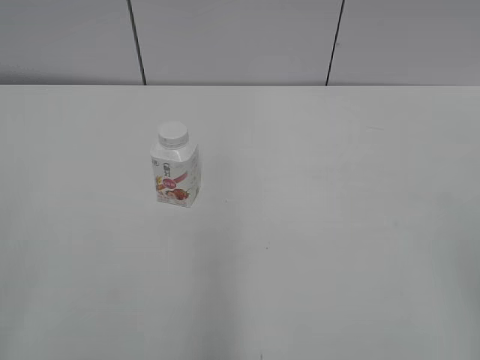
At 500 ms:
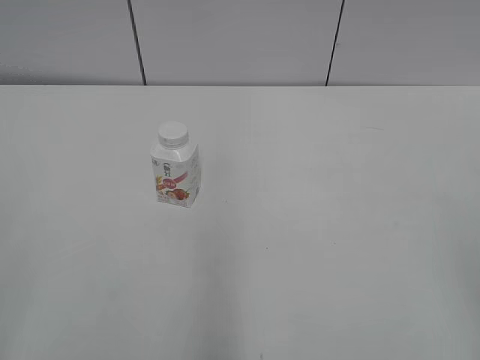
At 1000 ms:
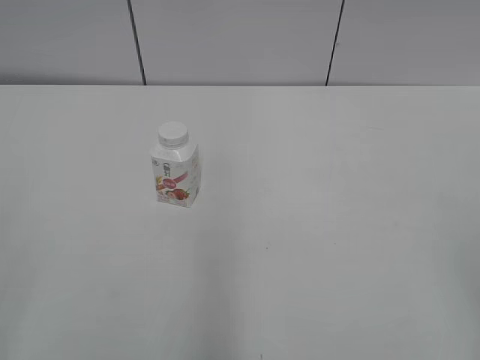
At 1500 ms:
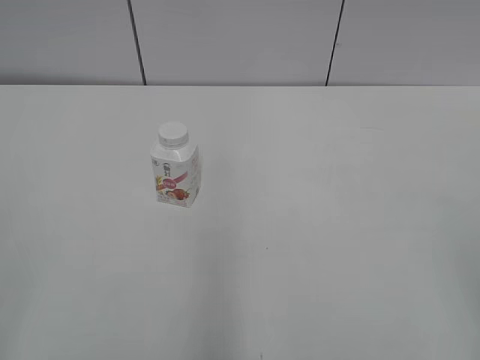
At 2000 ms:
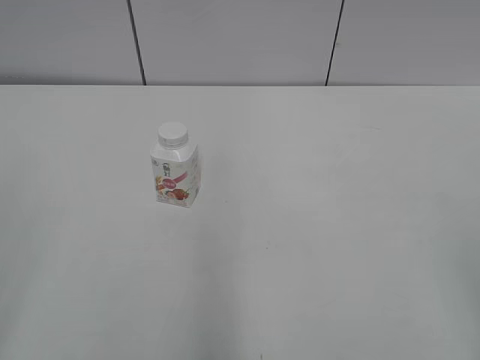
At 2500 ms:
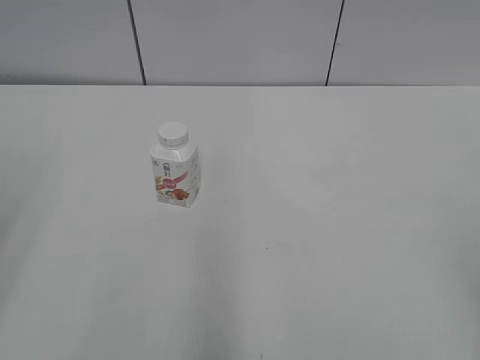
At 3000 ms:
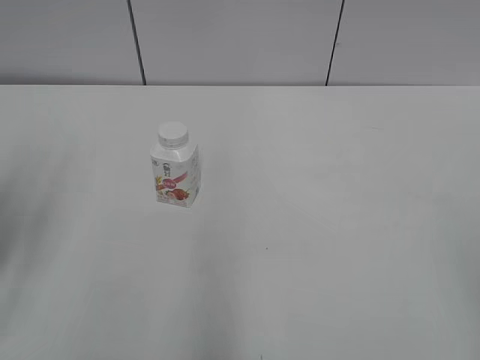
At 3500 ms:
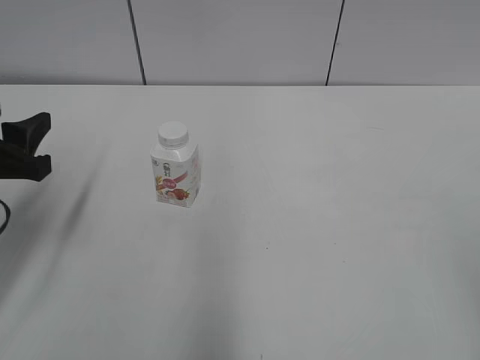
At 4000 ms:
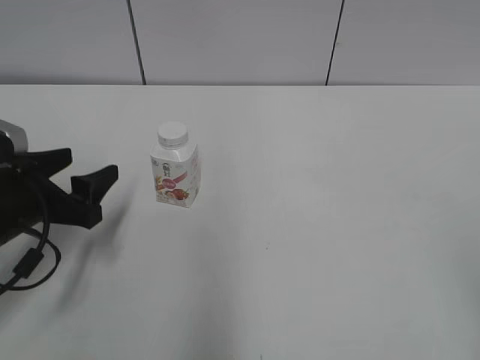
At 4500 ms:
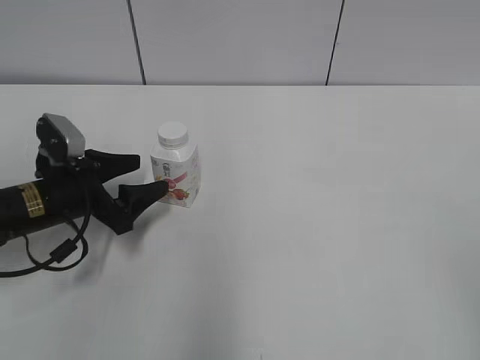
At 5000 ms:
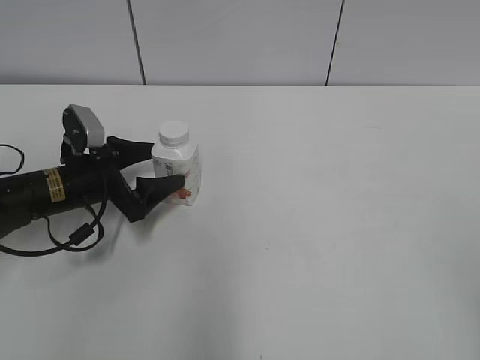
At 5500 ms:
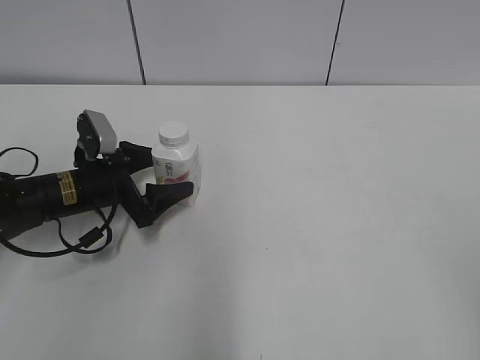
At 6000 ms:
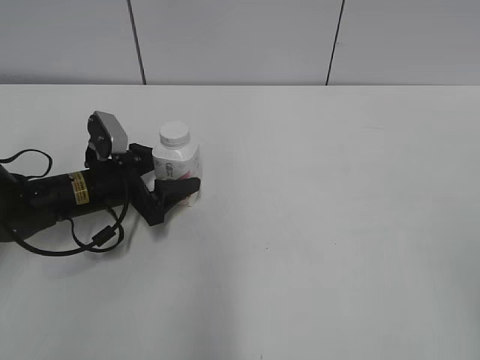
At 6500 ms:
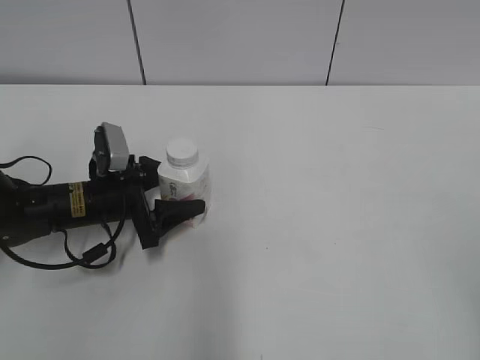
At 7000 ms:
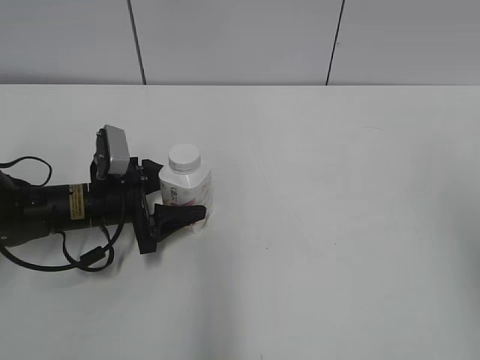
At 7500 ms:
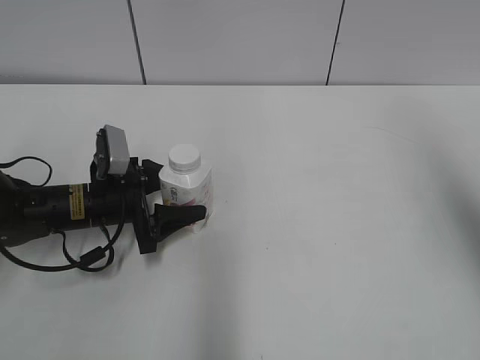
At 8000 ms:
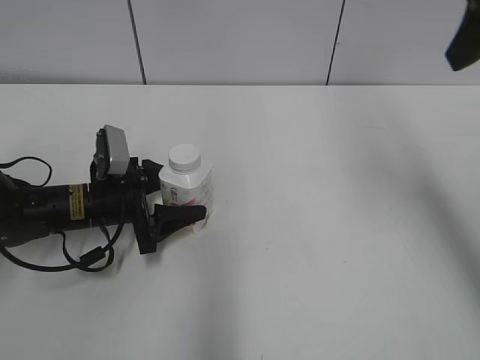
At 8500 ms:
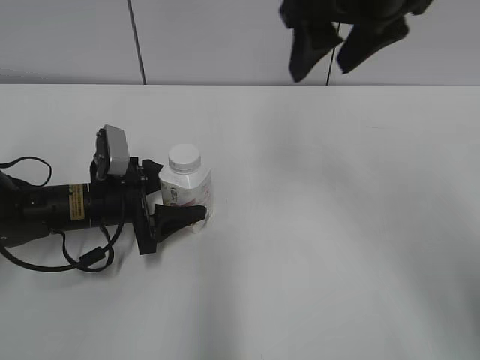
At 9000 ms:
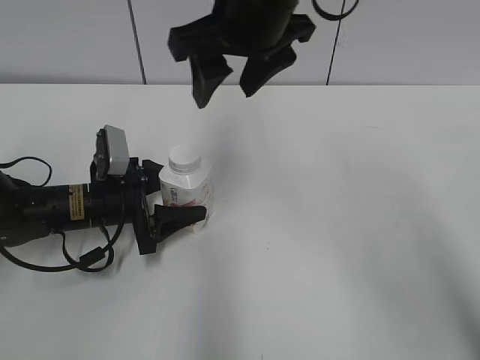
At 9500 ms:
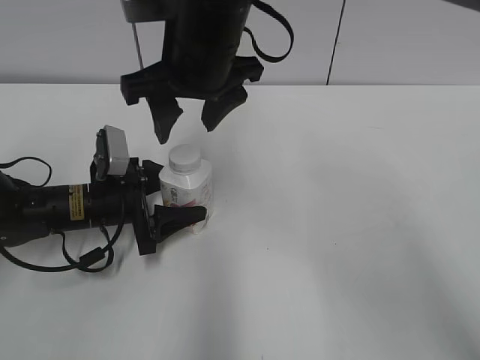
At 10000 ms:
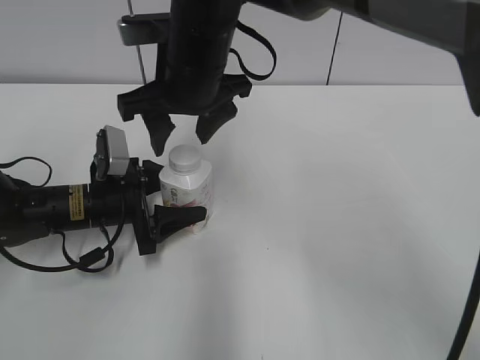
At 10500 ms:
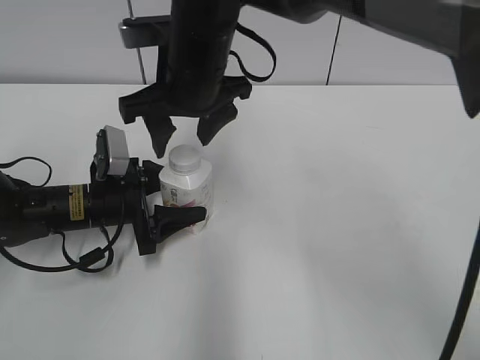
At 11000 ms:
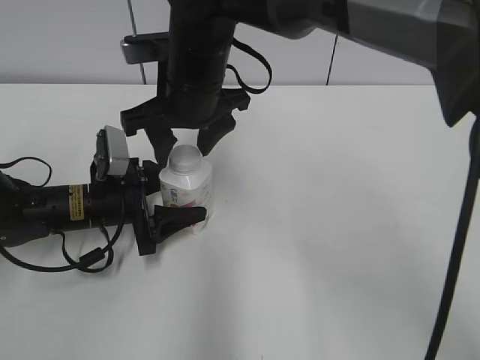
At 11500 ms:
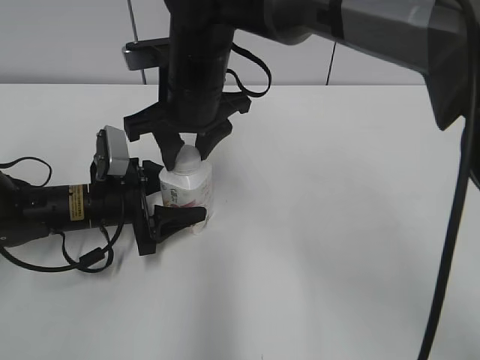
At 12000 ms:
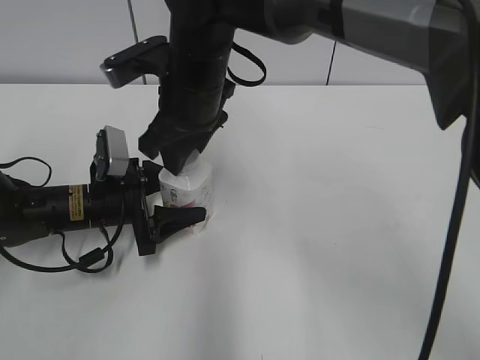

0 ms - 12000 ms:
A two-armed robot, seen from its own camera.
Step, 0 ms - 5500 ms: Grab the Yili Changqing with the left hand.
Step, 6500 ms - 7500 ms: Move the Yili Changqing from top to bottom.
2000 ms - 4000 ms: The left gripper travels forward and downward by roughly 30 cm, and opens.
4000 ms - 6000 ms: The left gripper goes about 15 cm forward, downward and to the right, and opens, then closes once more.
6000 ms - 8000 ms: The right gripper travels forward by some 30 cm.
8000 ms - 10000 ms: The right gripper goes roughly 30 cm to the left and downward.
10000 ms - 12000 ms: The right gripper closes its fingers.

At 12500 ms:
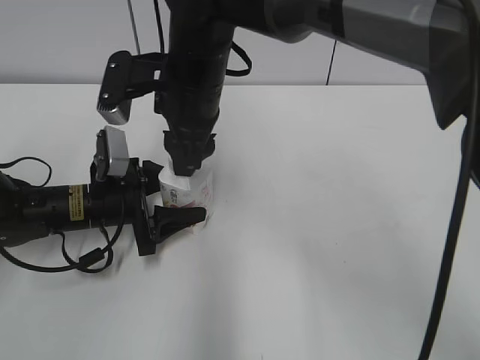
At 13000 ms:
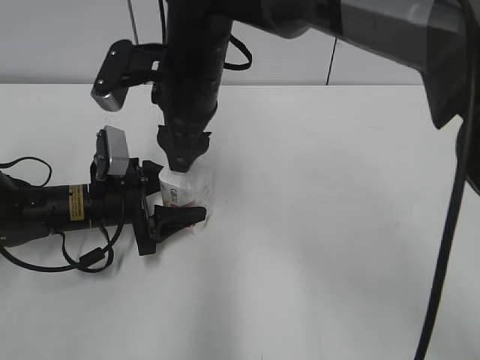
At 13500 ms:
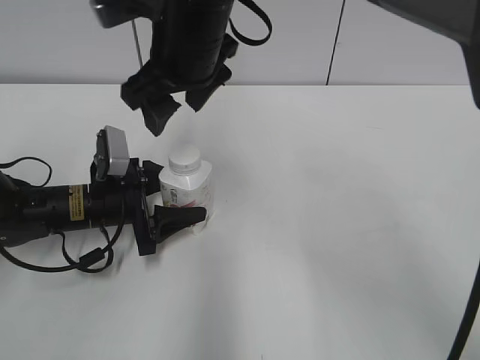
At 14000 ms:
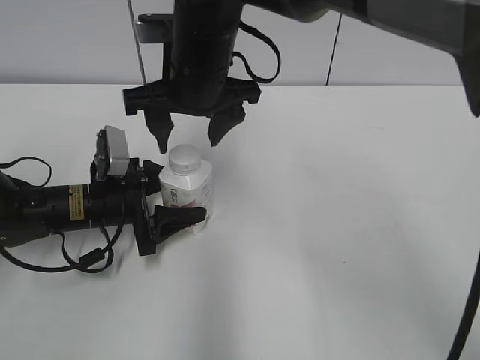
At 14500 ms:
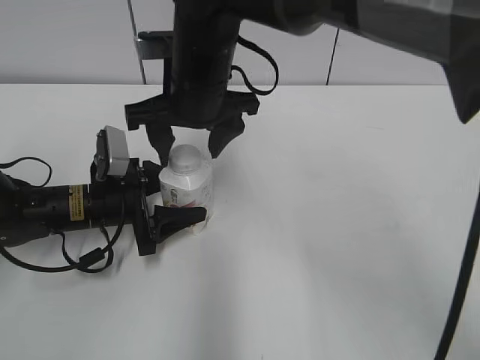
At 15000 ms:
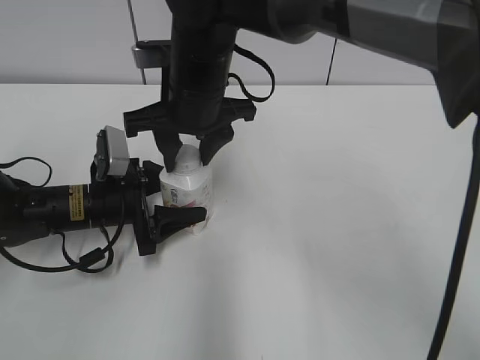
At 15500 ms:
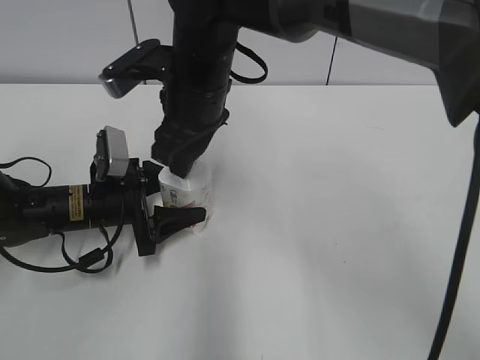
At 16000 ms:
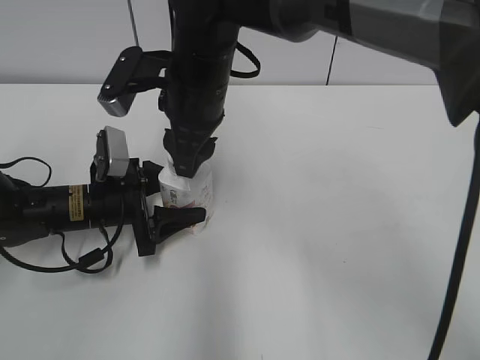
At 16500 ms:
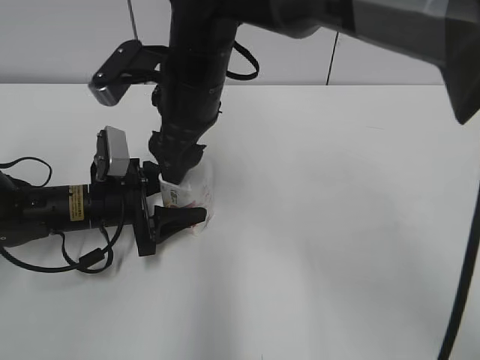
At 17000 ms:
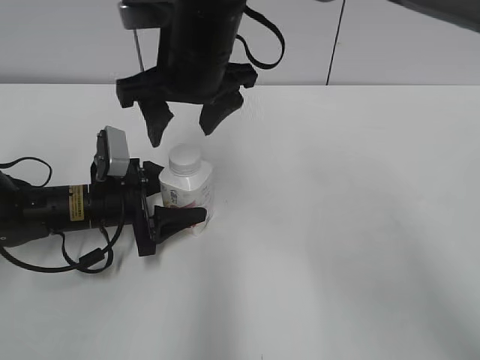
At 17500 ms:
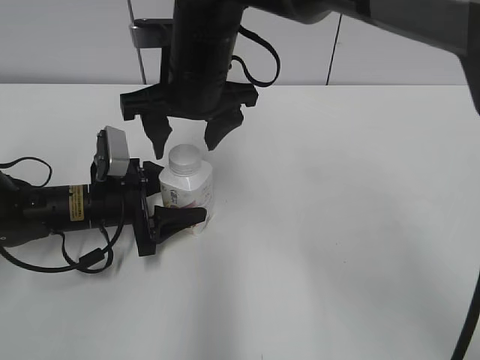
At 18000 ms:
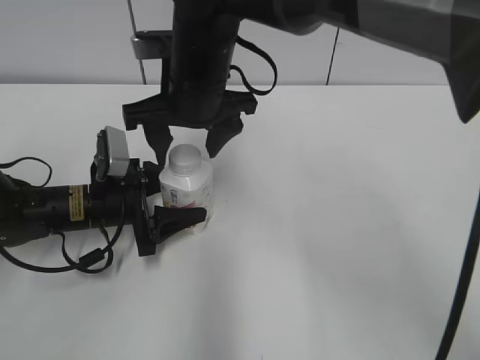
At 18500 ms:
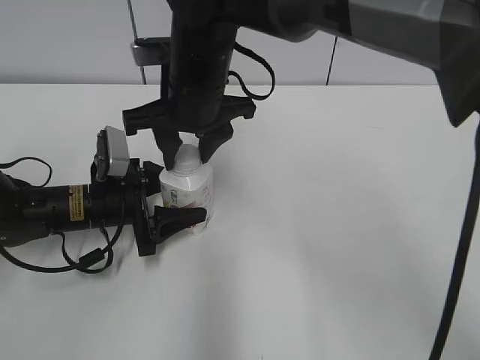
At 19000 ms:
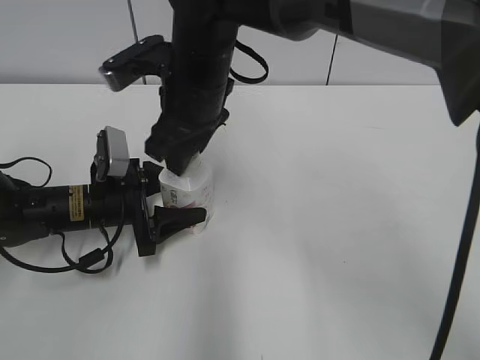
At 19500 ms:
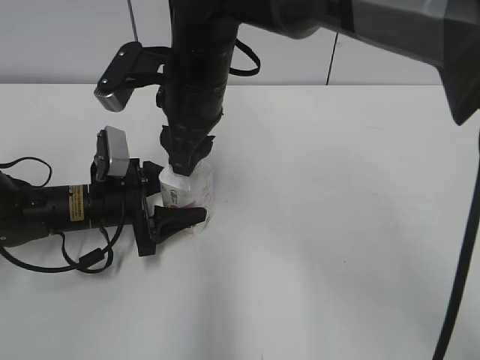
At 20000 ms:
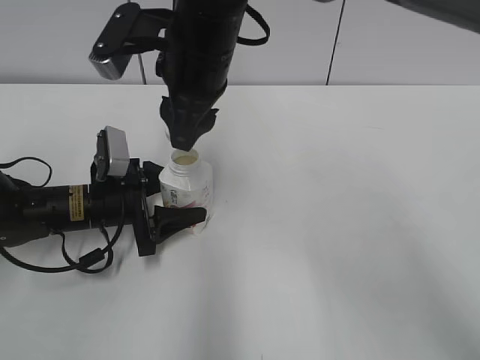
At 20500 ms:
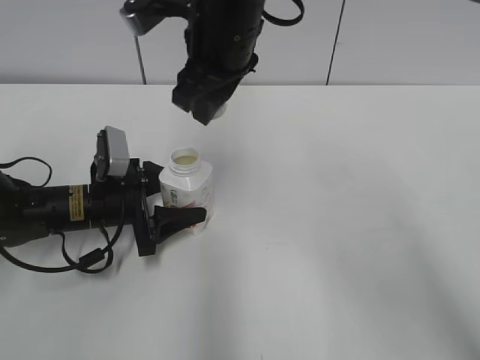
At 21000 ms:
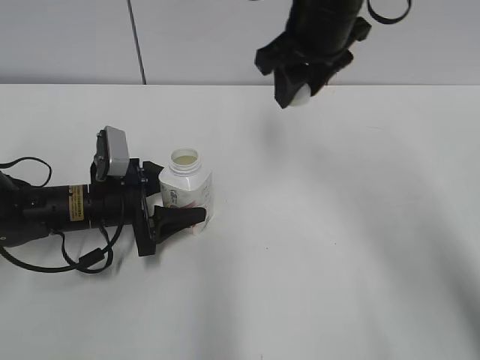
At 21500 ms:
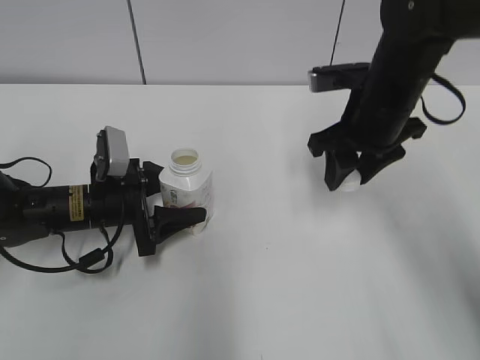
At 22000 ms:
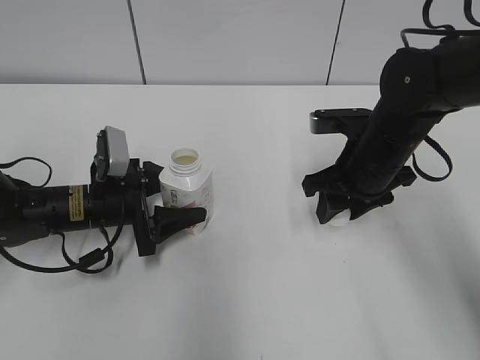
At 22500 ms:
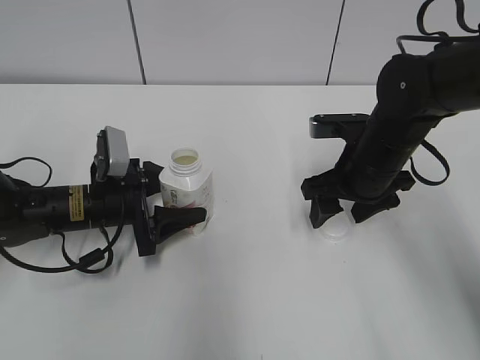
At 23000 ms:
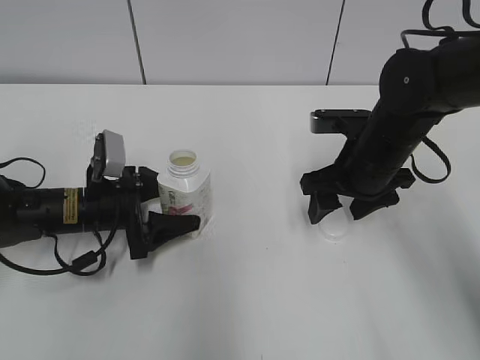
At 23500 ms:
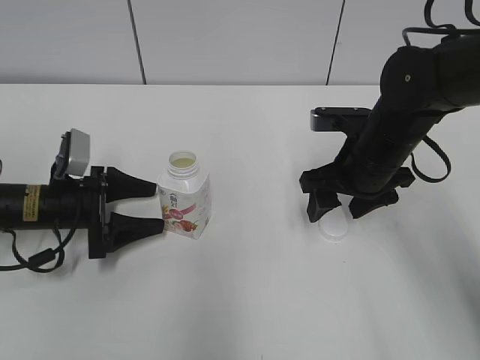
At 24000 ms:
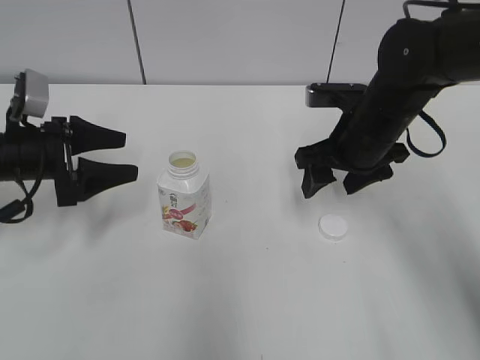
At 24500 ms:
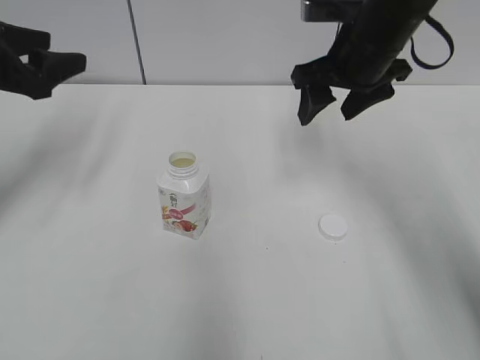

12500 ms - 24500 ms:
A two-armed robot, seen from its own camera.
Step, 20000 ms - 22000 ms: Place the bottle cap on the right.
12500 ms - 14500 ms: The right gripper opens up.
14500 ms - 16500 ms: The right gripper closes, then opens again.
16500 ms - 18500 ms: The right gripper closes its fingers.
18500 ms - 20500 ms: The right gripper is displaced upward by some 5 cm.
20500 ms - 22500 ms: The right gripper heads to the right and downward, covering about 20 cm, and opens up.
22500 ms - 24500 ms: The left gripper goes roughly 20 cm upward and to the left, and opens, then closes once more. Meanwhile the right gripper shifts roughly 15 cm upward and forward.

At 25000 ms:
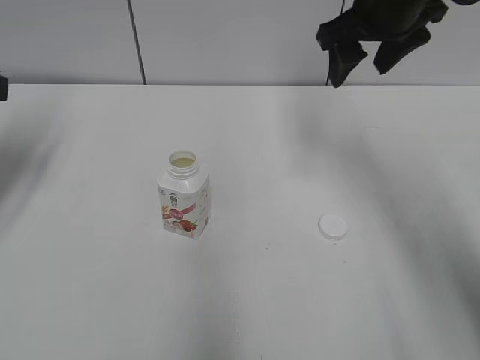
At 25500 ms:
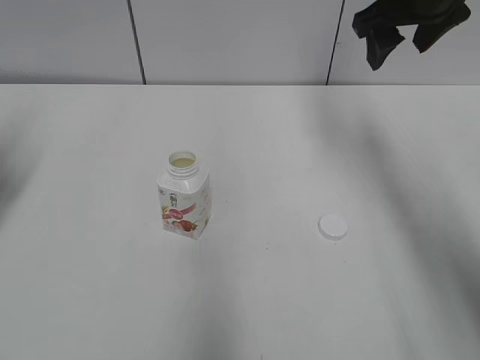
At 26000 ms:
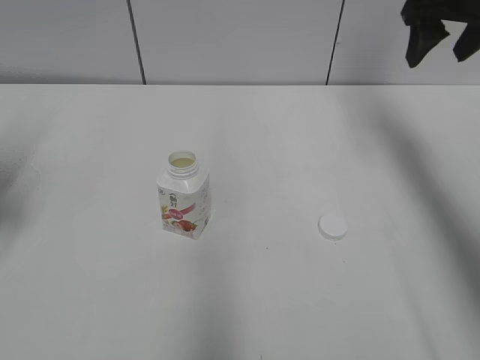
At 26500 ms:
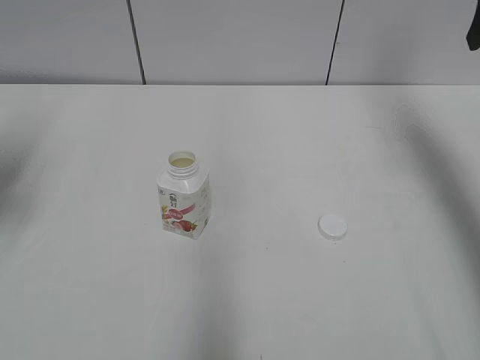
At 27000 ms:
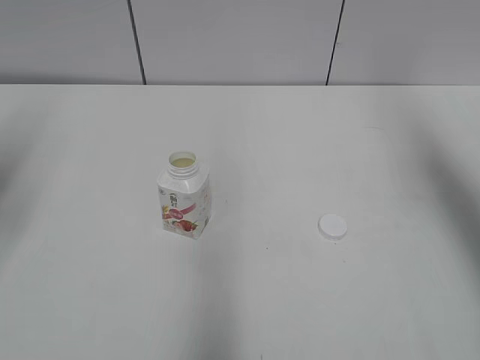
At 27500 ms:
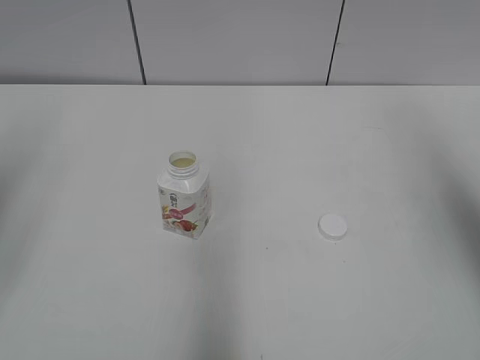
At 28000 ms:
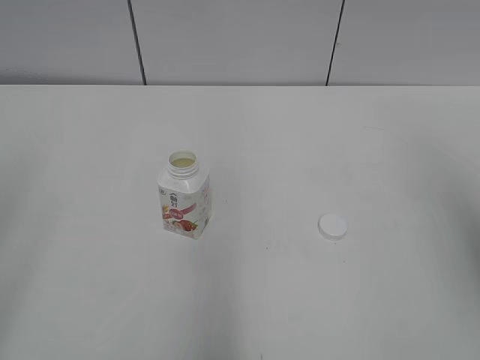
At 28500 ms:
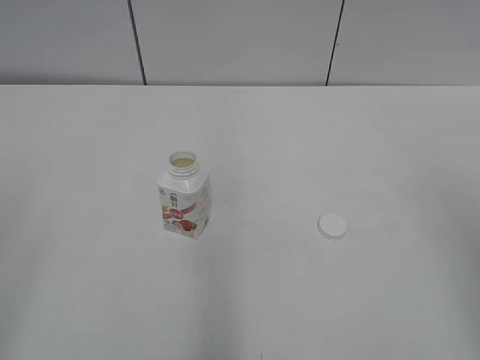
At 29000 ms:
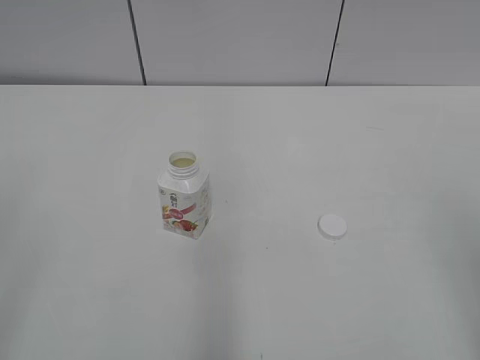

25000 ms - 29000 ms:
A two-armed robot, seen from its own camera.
25000 ms - 27000 ms: The left gripper goes roughly 10 cm backward and upward. Meanwhile the right gripper travels to the right, backward and upward by roughly 20 cm.
27000 ms - 29000 ms: The right gripper travels backward by about 25 cm.
